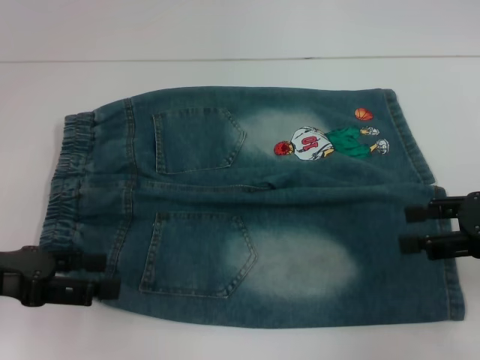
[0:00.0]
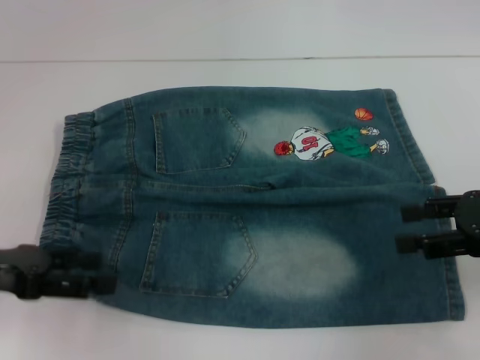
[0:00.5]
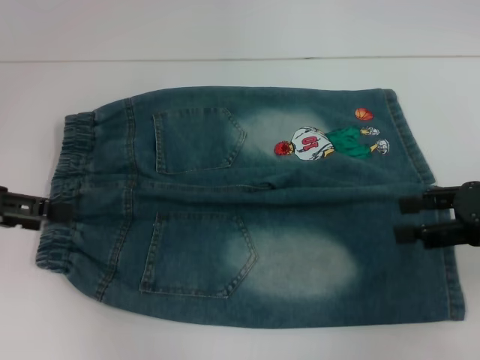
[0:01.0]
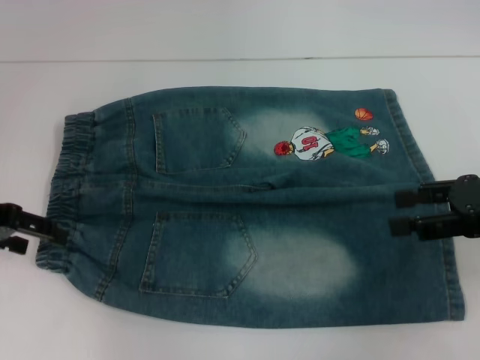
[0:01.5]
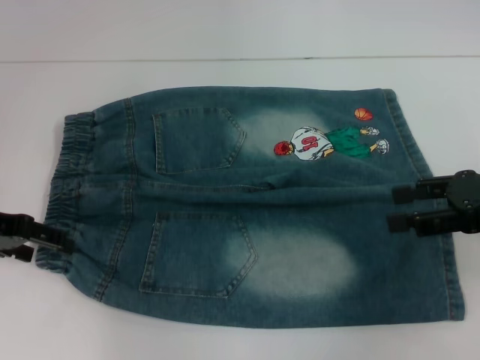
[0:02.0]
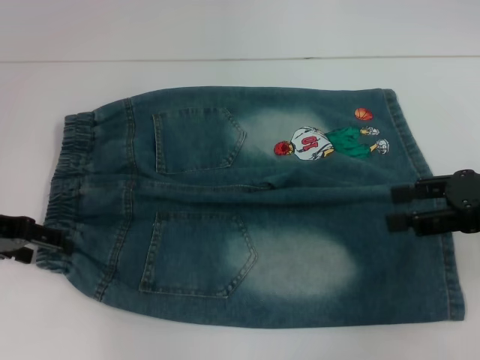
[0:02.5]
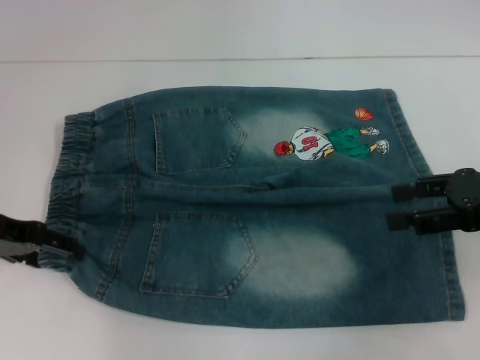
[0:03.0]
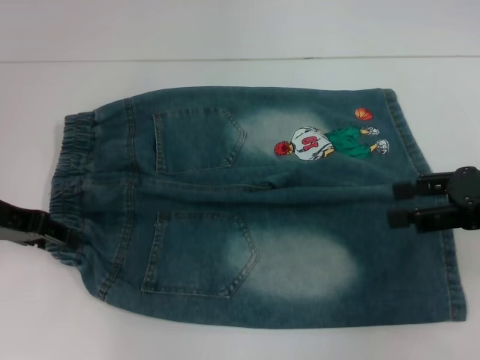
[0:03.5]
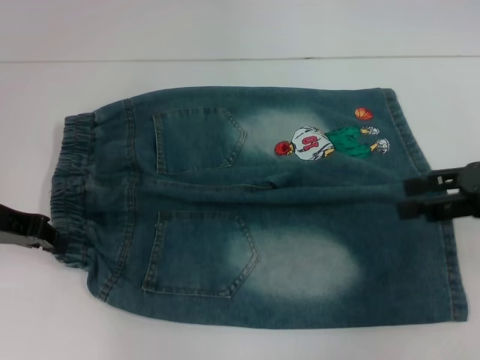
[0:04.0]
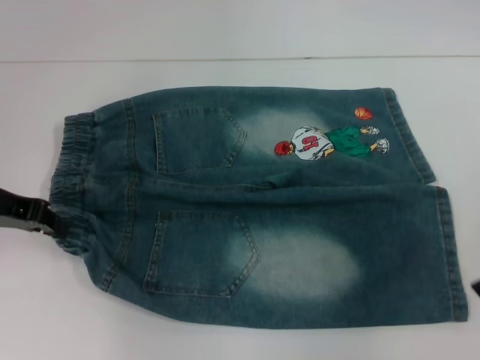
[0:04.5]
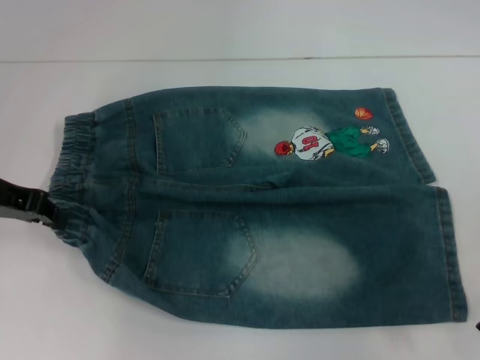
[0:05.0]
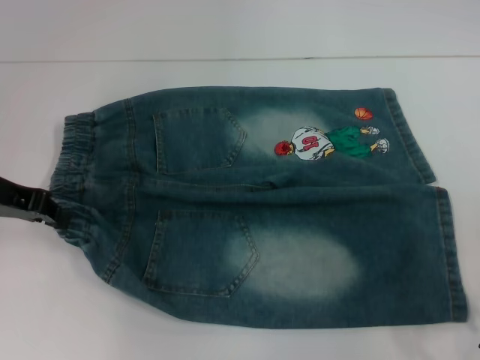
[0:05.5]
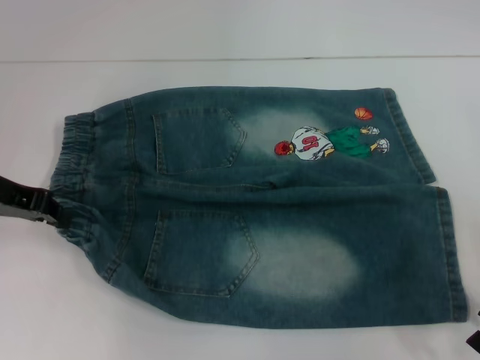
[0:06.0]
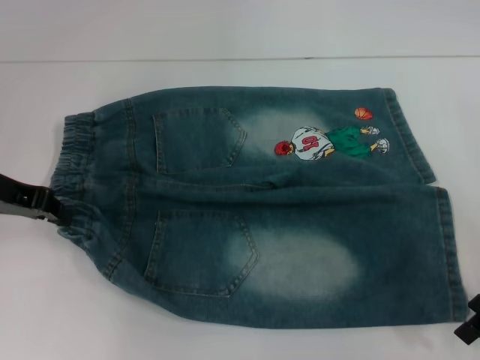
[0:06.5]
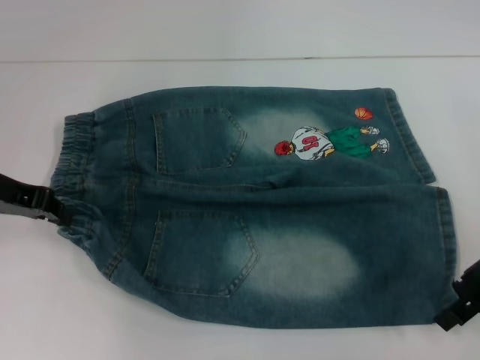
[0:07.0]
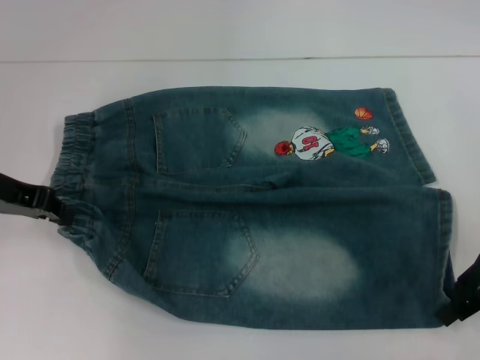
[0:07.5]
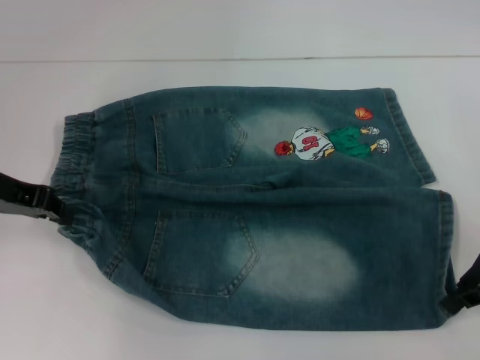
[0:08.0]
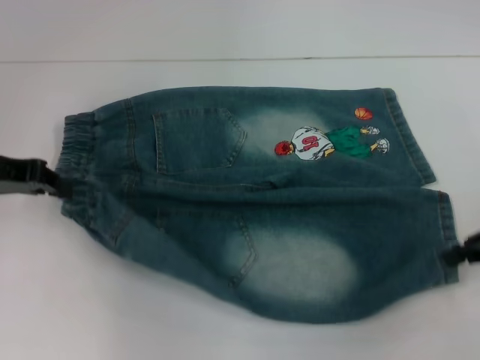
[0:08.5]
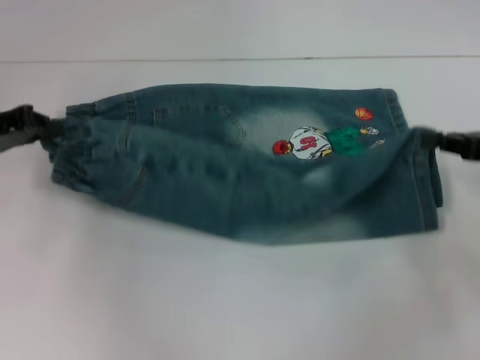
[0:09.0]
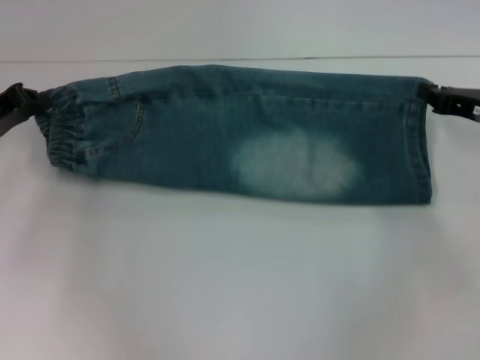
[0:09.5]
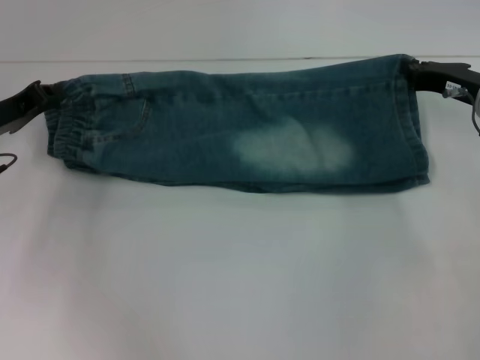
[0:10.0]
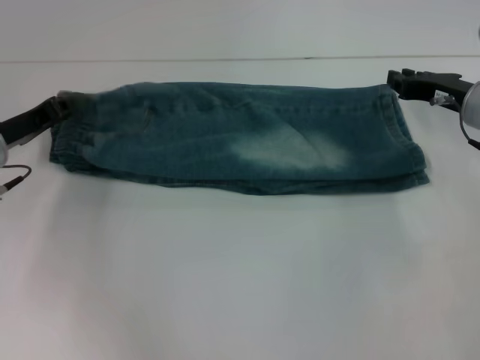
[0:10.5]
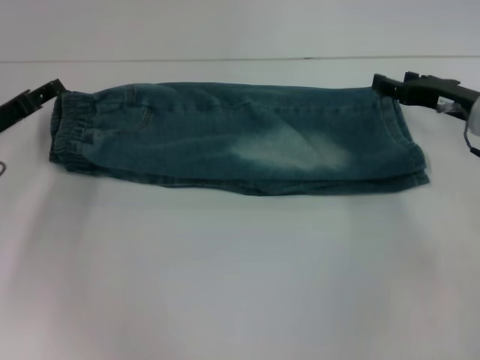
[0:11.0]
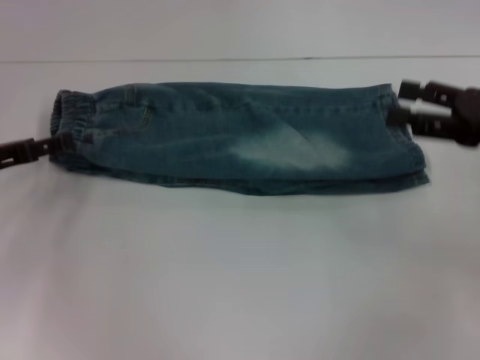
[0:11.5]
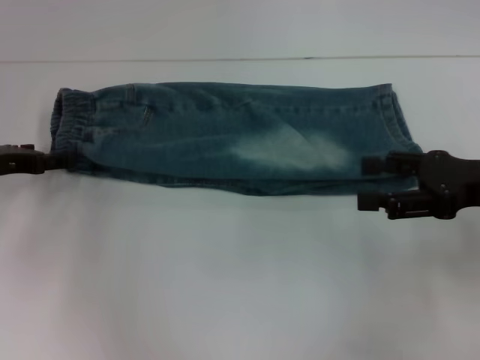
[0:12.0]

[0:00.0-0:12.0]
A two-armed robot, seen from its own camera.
Step, 0:00.0 to 0:03.5: Hold the lower left waistband with your left hand.
Step, 0:04.0 to 0:08.0: Grab the lower right pant leg with your right hand.
Step, 0:08.5 to 0:10.0: Fold upward with your right hand.
0:00.0 to 0:02.0: The left gripper is displaced forward by some 10 cm.
0:02.0 to 0:04.0: The left gripper closes.
0:06.0 to 0:08.0: The right gripper closes up.
0:08.0 to 0:10.0: The left gripper heads downward, covering about 5 cm; the right gripper shifts about 10 cm forward.
0:10.0 to 0:12.0: The left gripper opens its fingers. Meanwhile the right gripper heads backward, covering about 10 cm, and opens.

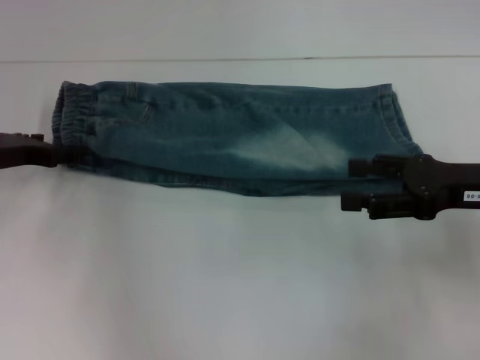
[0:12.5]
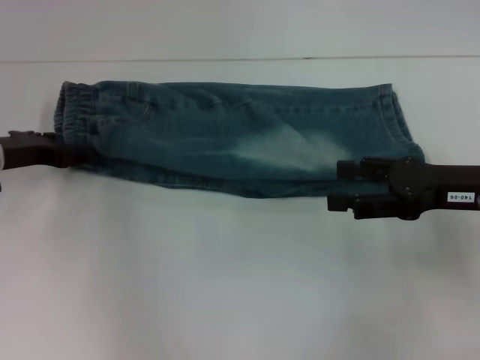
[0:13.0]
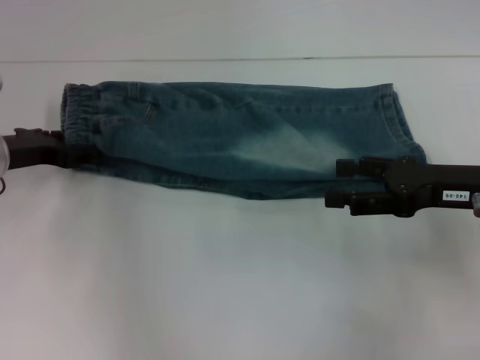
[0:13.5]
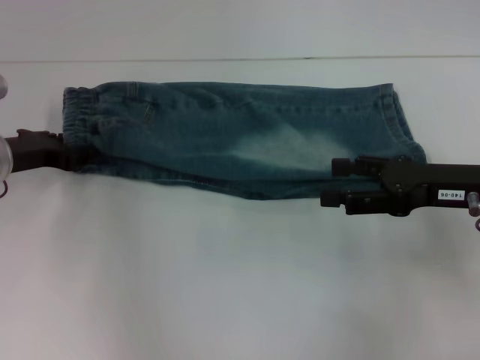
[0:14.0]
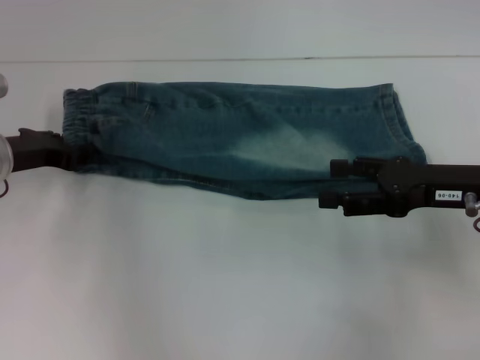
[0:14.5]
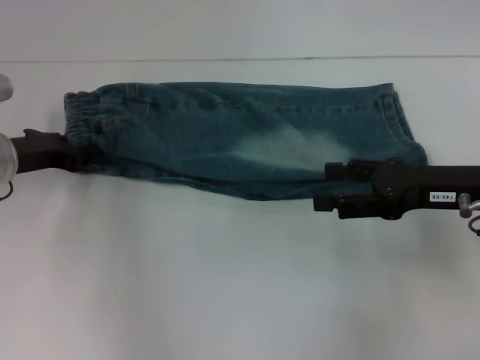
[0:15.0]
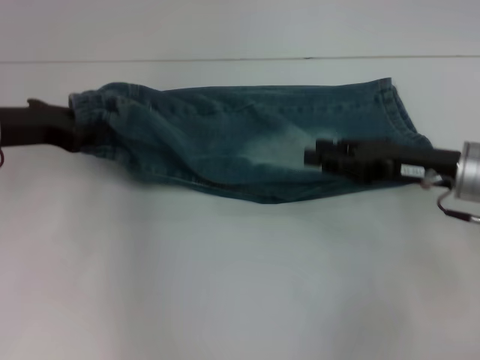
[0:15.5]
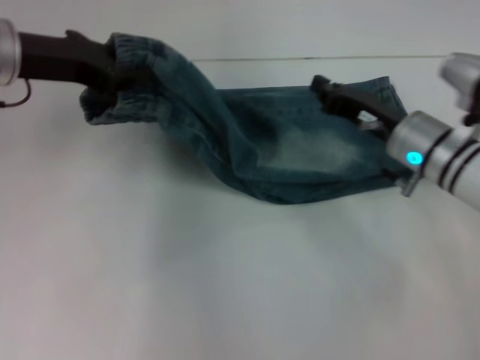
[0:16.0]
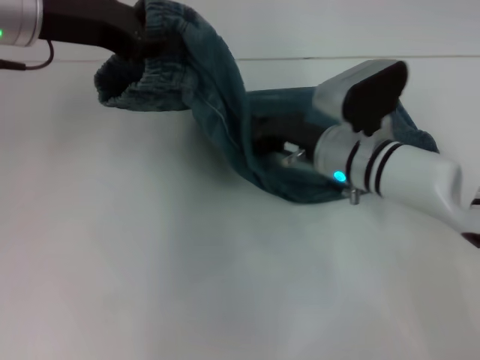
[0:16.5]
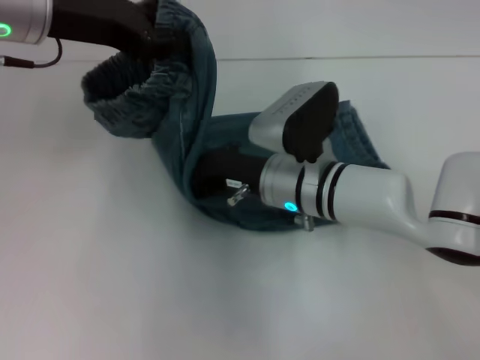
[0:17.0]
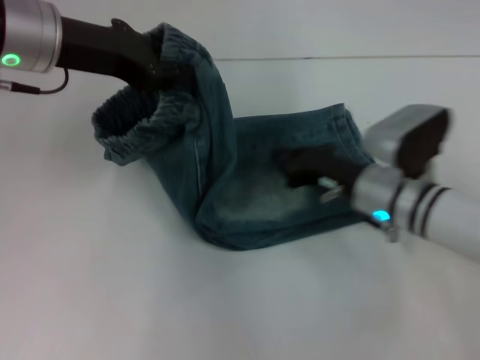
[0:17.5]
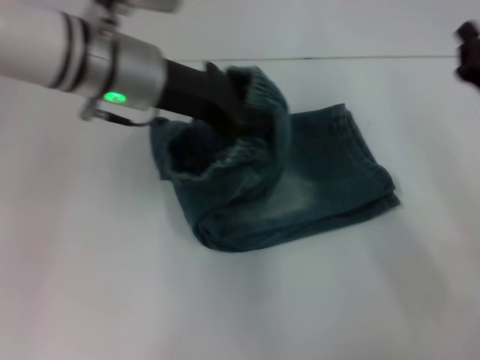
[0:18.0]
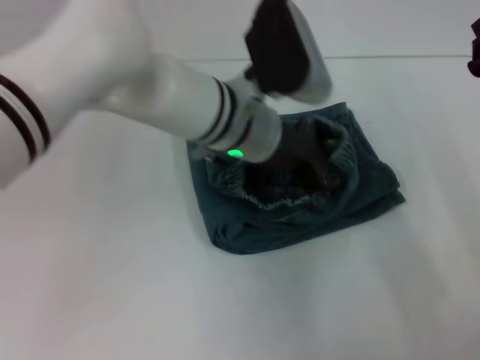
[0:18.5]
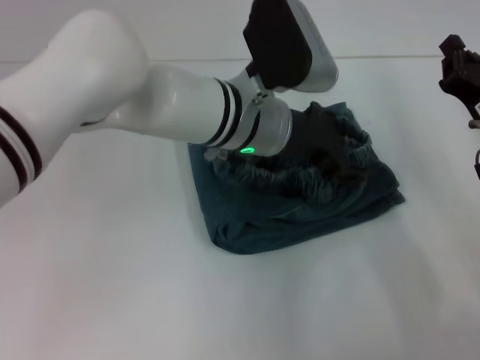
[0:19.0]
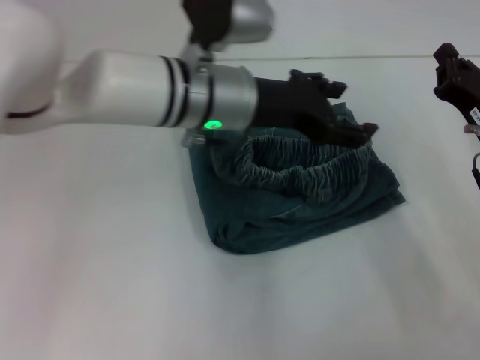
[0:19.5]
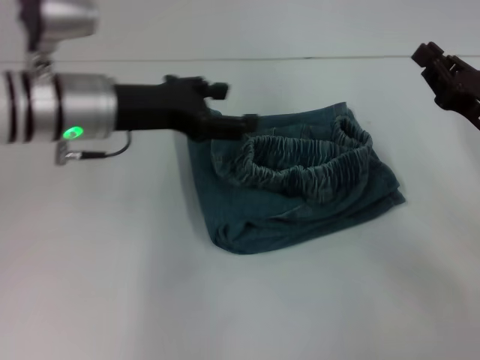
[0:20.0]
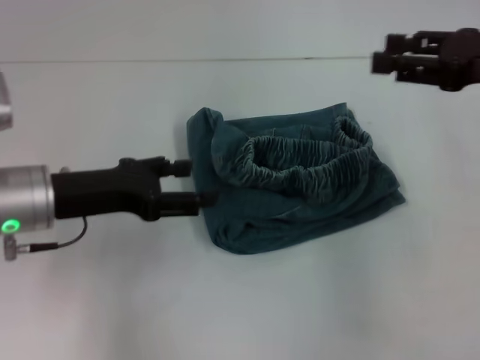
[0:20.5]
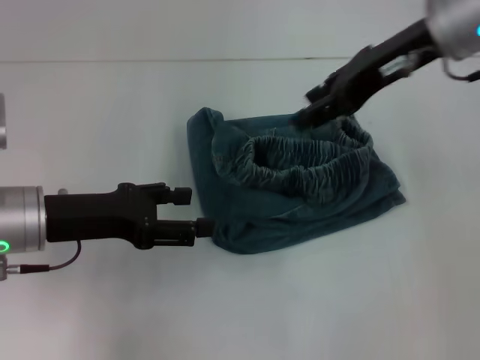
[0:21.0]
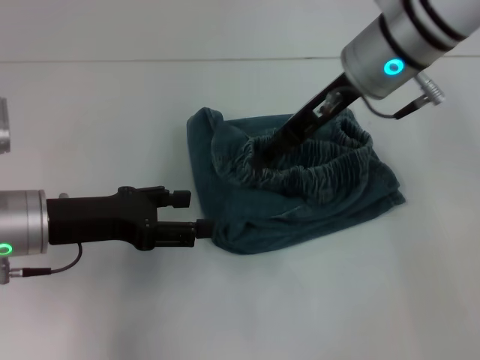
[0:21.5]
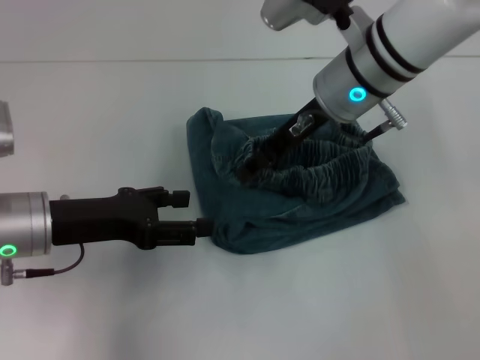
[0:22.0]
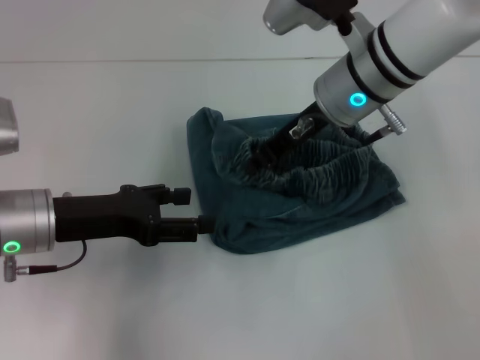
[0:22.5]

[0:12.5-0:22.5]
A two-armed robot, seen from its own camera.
Step, 0:12.5 to 0:14.5: Hold the waistband with your left hand.
Step, 0:15.0 to 0:17.0: Press the middle of the pants with your right hand.
Step, 0:17.5 to 0:19.0: Fold to the right with your left hand.
0:12.5 to 0:14.5: The left gripper closes.
0:14.5 to 0:16.5: The right gripper moves to the left and forward, roughly 15 cm, and closes its fingers. The left gripper shifts approximately 20 cm upward and to the right.
0:16.5 to 0:18.5: The right gripper shifts approximately 15 cm to the right. Meanwhile the left gripper travels to the right and downward by some 20 cm.
0:18.5 to 0:20.5: The right gripper goes about 15 cm upward, and opens its fingers; the left gripper travels to the left by roughly 20 cm, and opens its fingers.
0:20.5 to 0:22.5: The right gripper goes approximately 20 cm to the left.

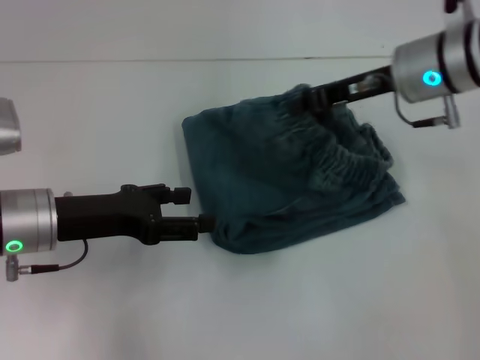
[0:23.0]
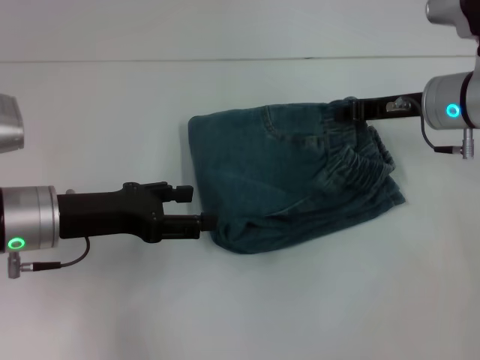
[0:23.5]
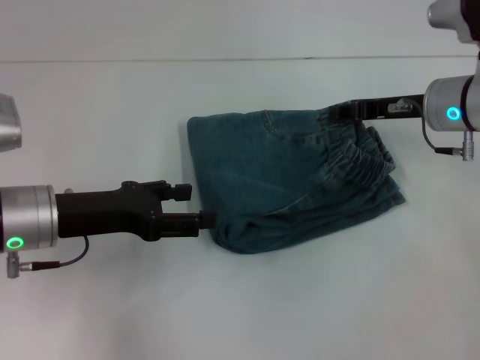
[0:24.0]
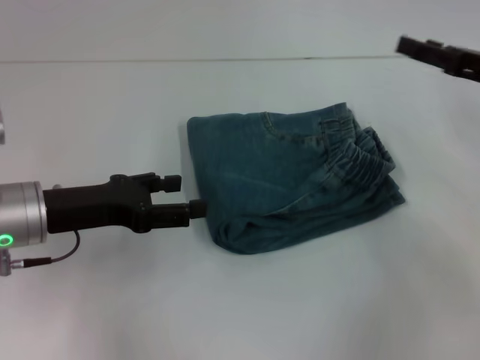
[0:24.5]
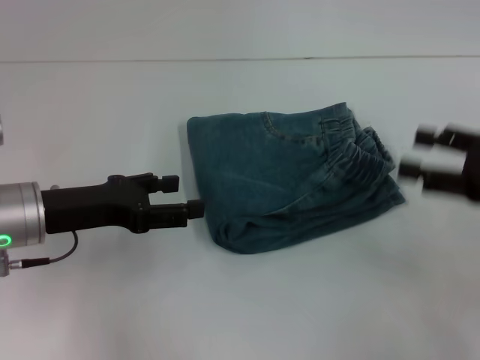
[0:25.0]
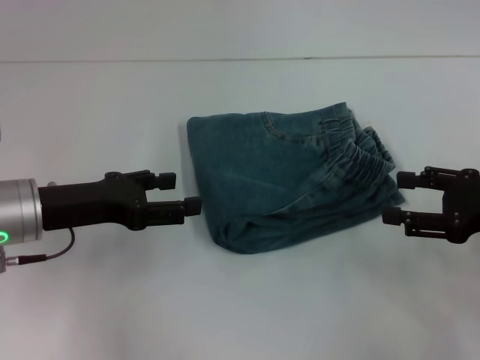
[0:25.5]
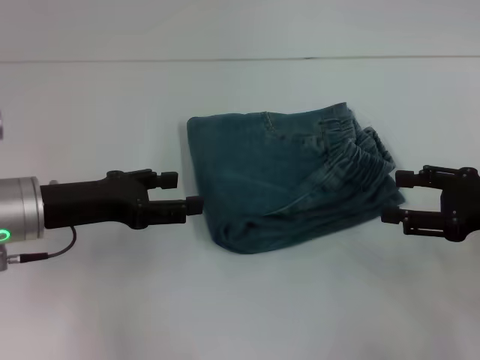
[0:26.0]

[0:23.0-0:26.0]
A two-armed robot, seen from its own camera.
0:23.0 to 0:24.5: The right gripper travels to the right and backward by some 15 cm, and opens up.
0:24.5 to 0:26.0: The right gripper is displaced backward by roughly 10 cm.
